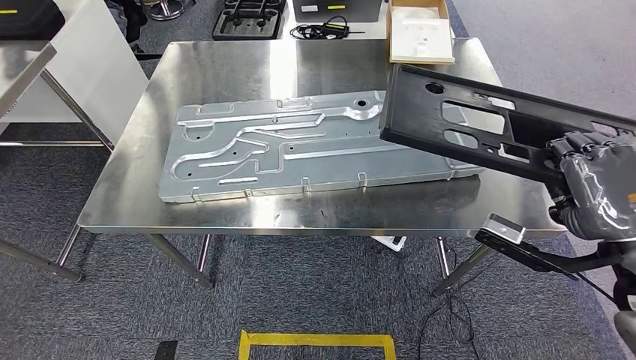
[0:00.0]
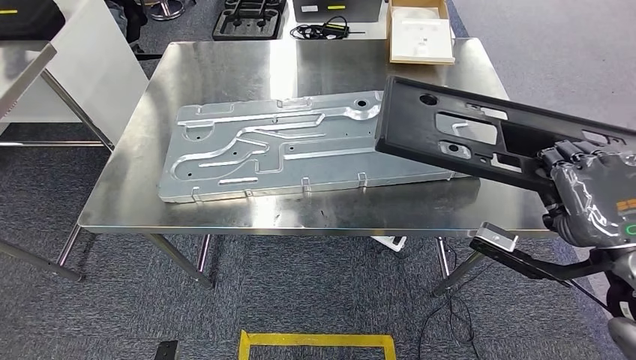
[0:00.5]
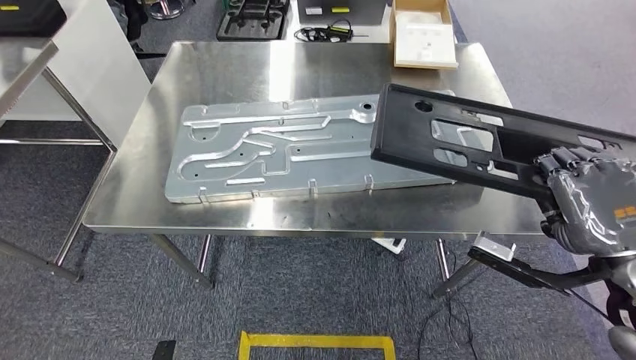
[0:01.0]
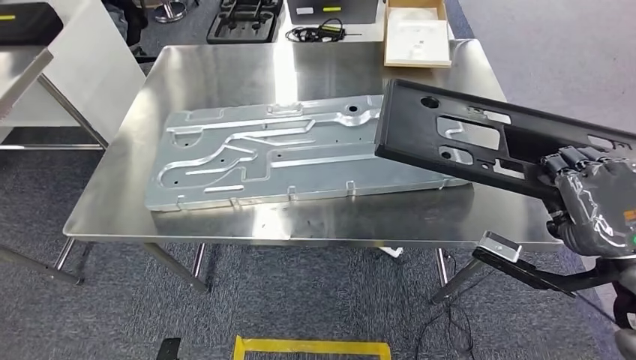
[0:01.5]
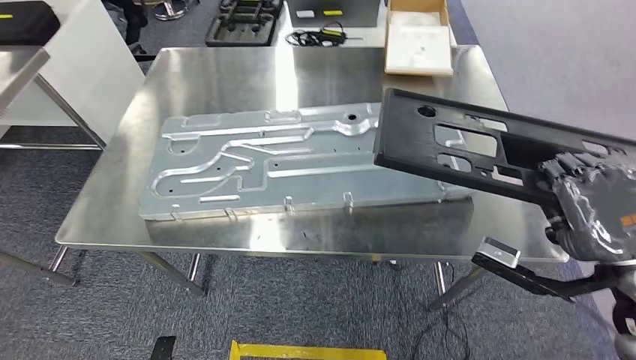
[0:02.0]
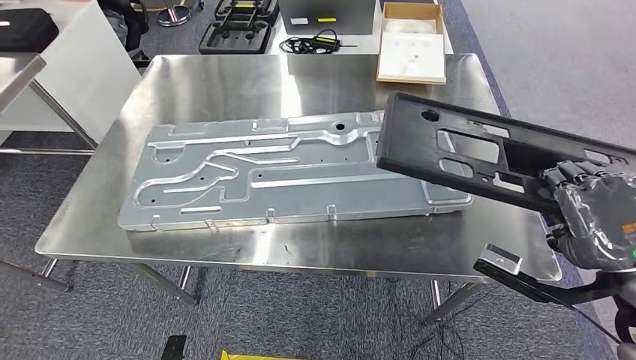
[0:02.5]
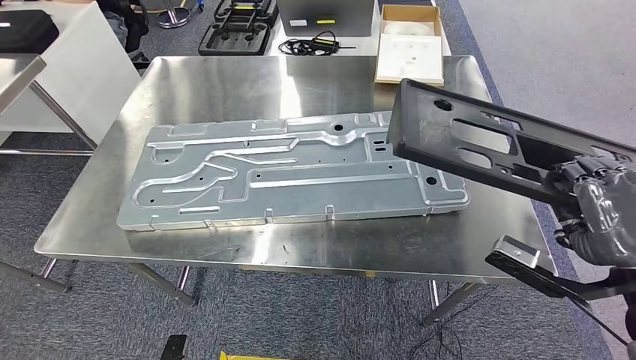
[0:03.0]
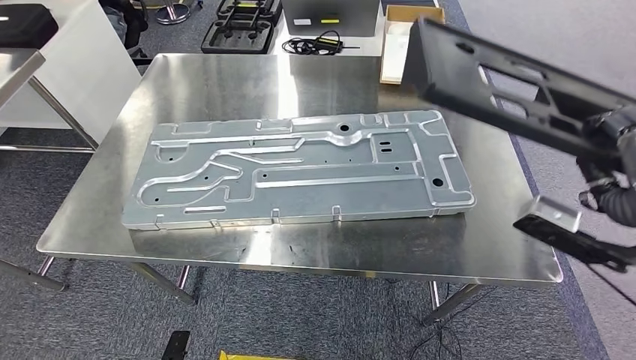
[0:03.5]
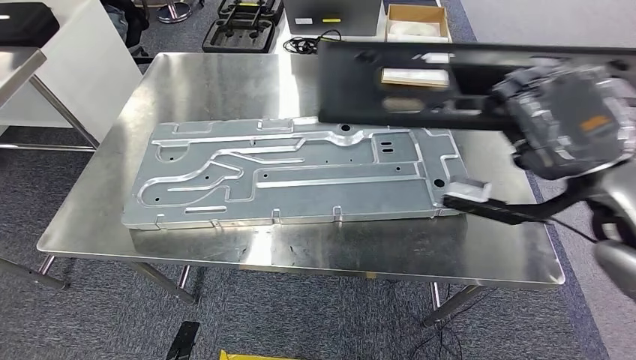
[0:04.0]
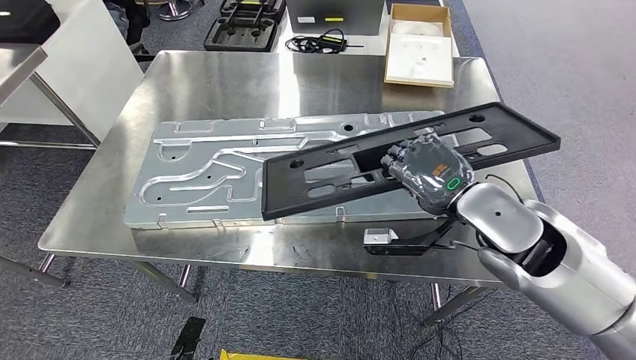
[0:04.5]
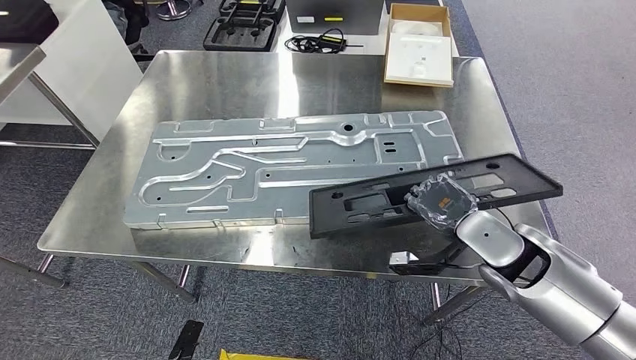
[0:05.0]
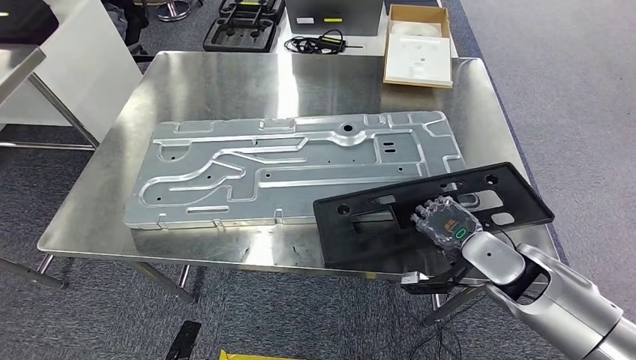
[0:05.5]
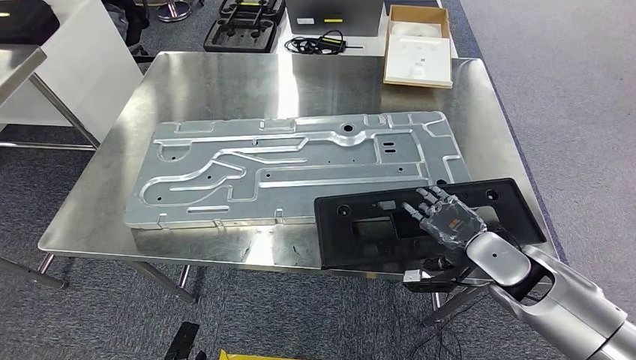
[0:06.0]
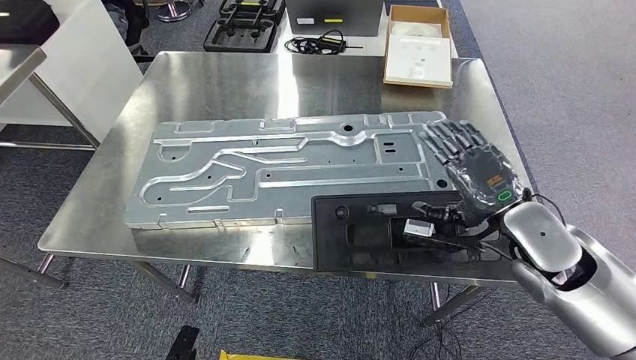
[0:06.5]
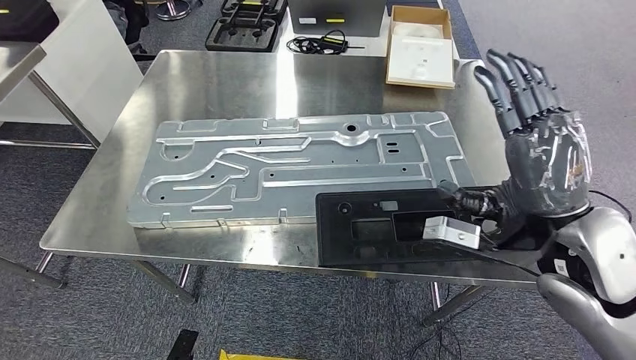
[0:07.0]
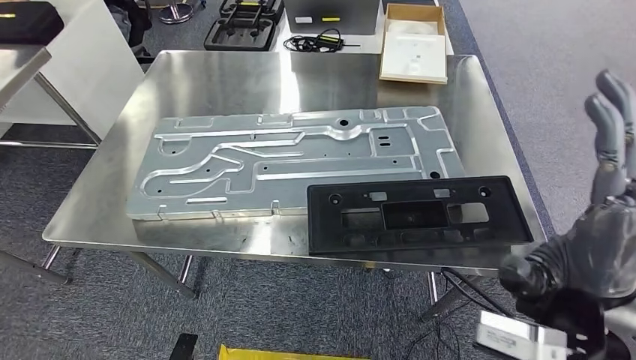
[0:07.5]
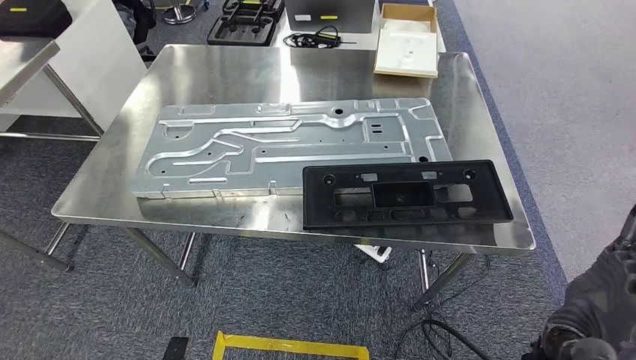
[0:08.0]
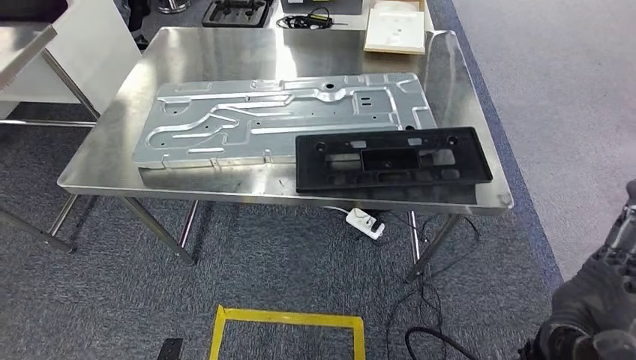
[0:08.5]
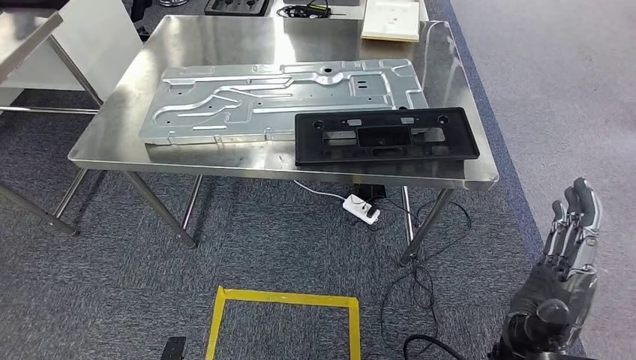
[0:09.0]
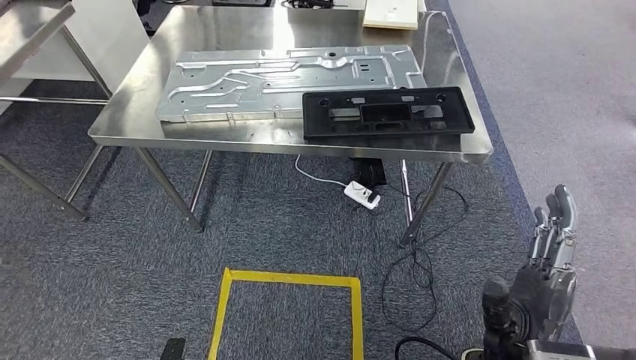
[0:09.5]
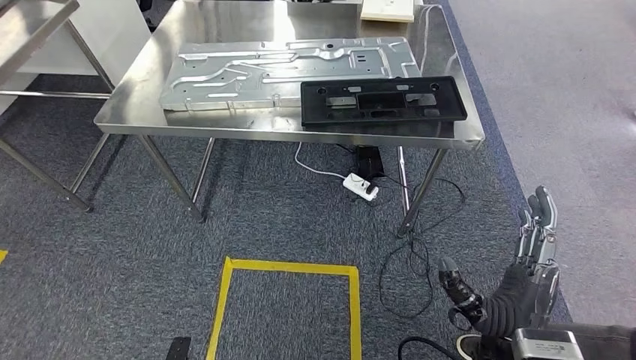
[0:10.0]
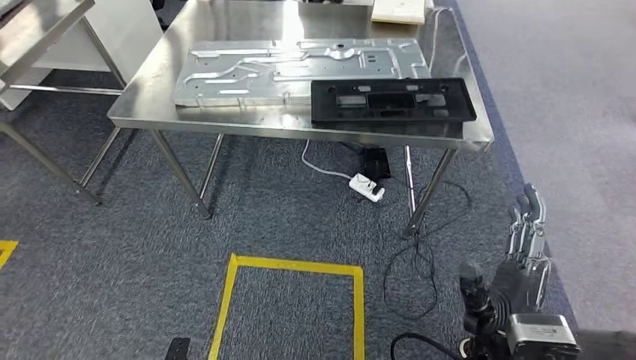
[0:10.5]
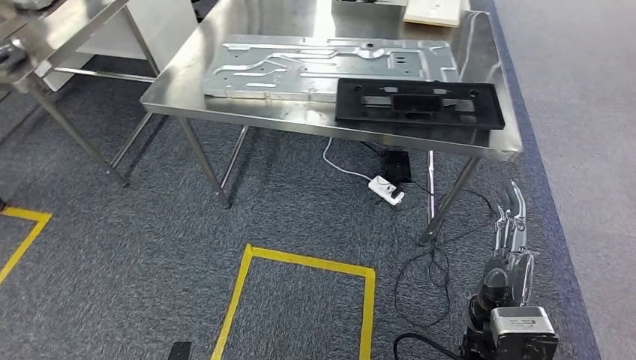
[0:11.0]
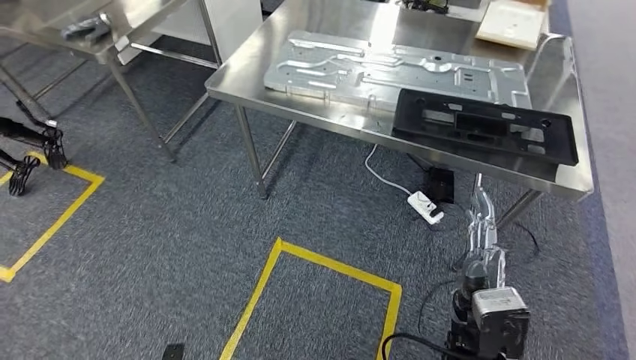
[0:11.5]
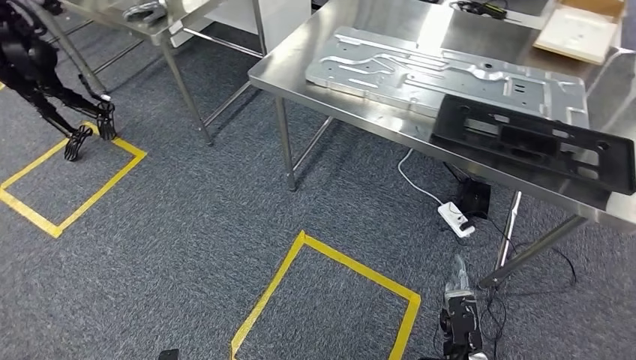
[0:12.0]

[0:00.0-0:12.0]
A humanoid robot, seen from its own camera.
Step, 0:00.0 to 0:09.0: Insert the large material into the corresponding slot on the workbench.

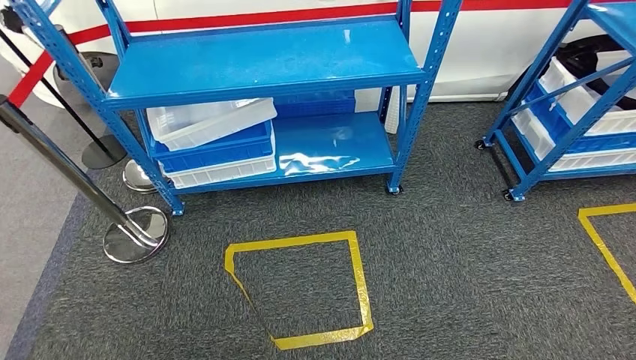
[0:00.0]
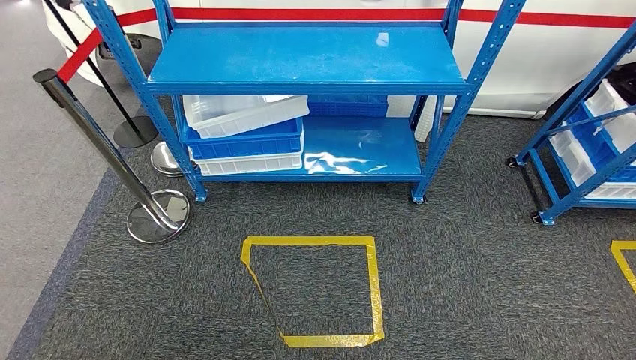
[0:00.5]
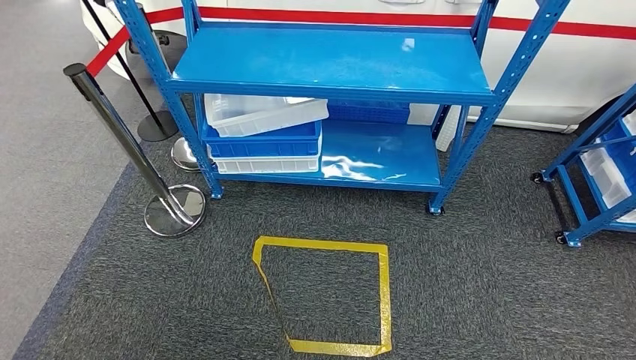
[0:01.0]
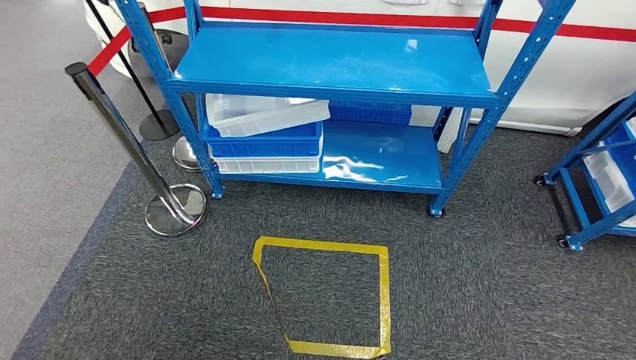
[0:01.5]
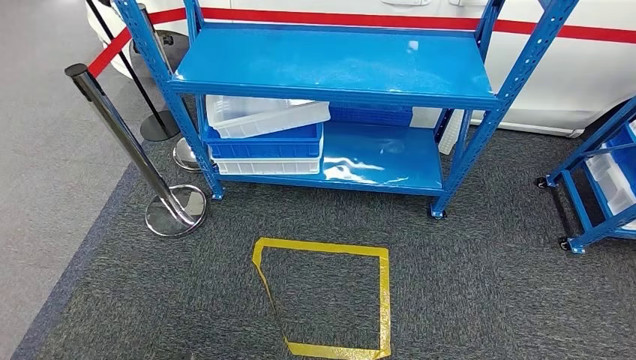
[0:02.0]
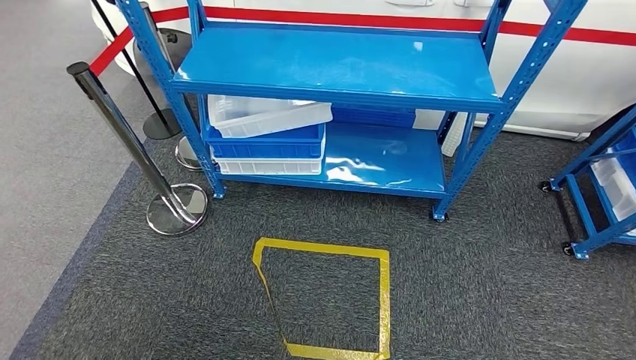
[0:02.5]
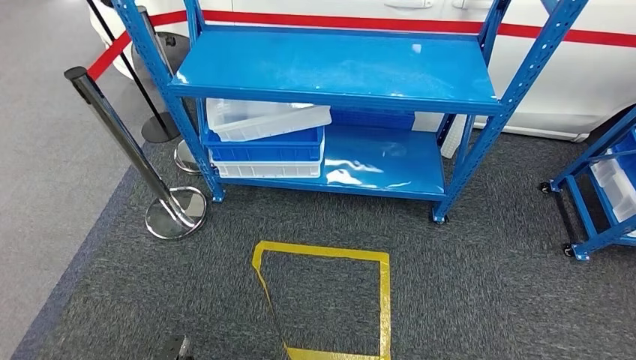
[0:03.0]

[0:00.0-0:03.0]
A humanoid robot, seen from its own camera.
Step, 0:00.0 to 0:03.0: Return to the initial position at the shelf.
0:01.5 to 0:03.0: The left hand travels backward and back again, approximately 10 cm each way. The right hand moves forward and backward over approximately 15 cm, changing direction 2 times.
